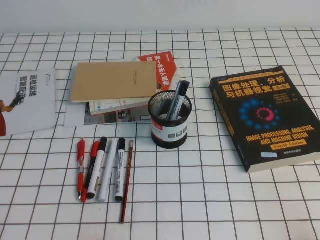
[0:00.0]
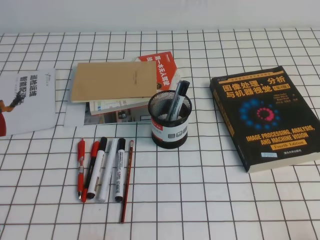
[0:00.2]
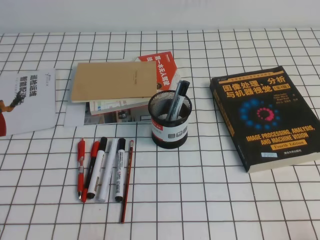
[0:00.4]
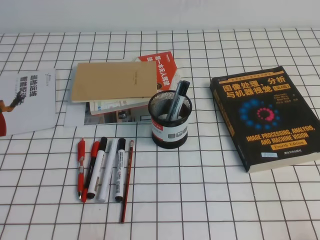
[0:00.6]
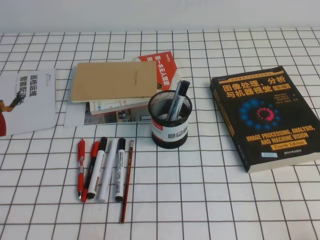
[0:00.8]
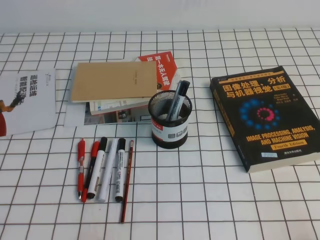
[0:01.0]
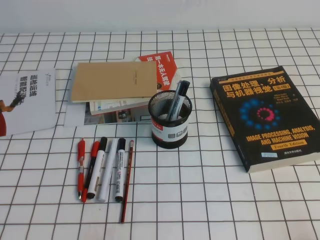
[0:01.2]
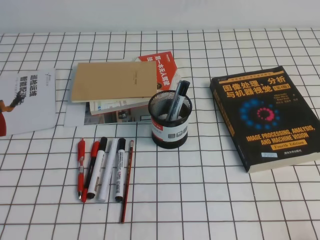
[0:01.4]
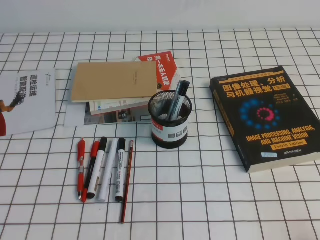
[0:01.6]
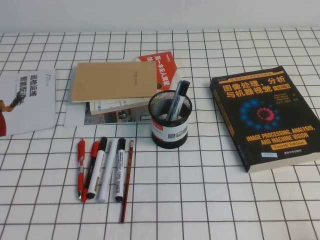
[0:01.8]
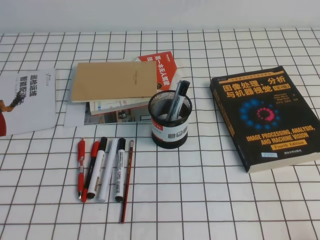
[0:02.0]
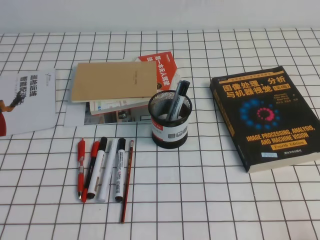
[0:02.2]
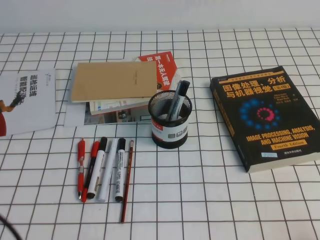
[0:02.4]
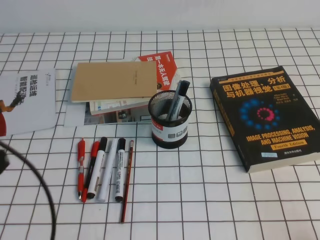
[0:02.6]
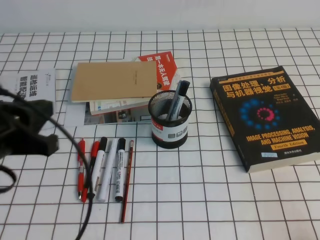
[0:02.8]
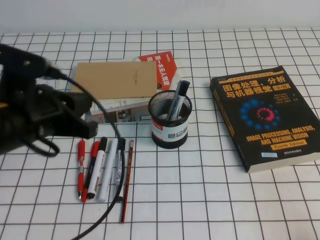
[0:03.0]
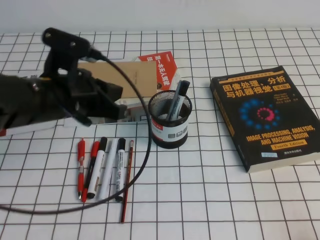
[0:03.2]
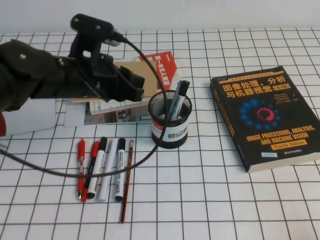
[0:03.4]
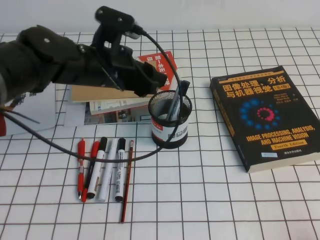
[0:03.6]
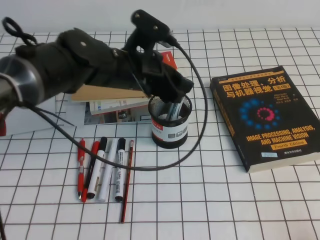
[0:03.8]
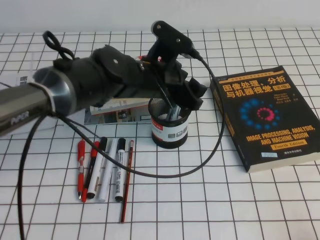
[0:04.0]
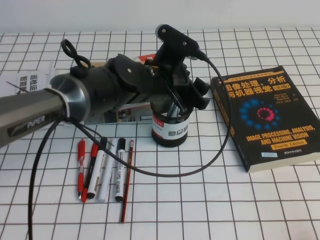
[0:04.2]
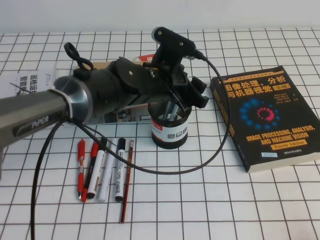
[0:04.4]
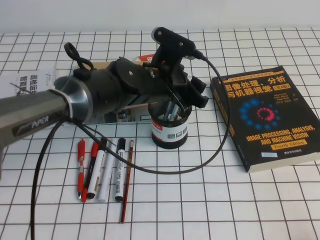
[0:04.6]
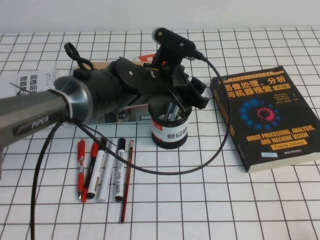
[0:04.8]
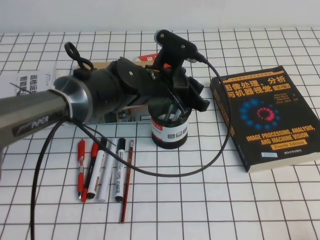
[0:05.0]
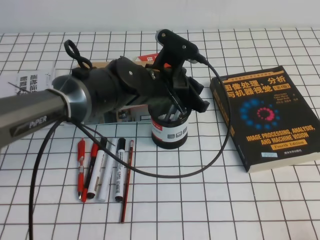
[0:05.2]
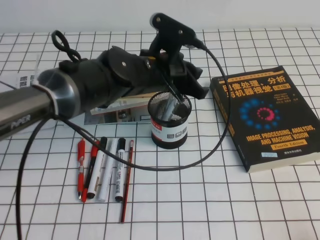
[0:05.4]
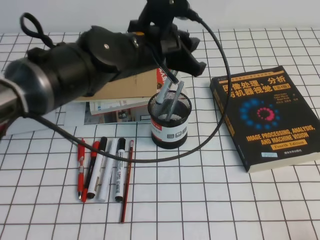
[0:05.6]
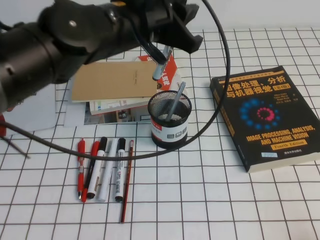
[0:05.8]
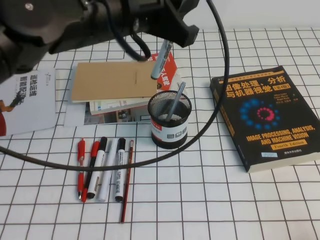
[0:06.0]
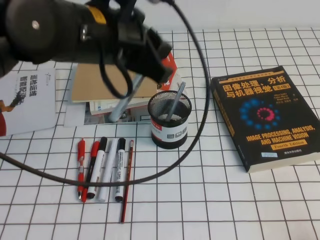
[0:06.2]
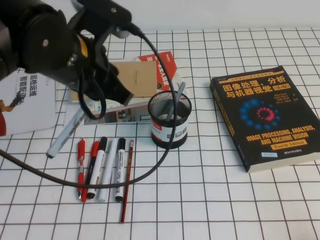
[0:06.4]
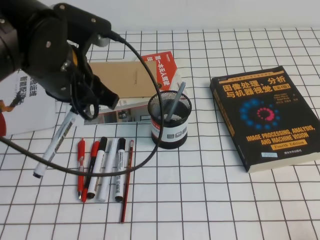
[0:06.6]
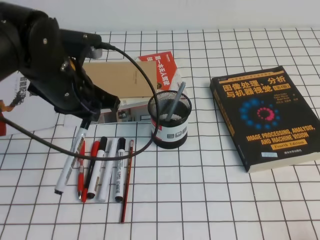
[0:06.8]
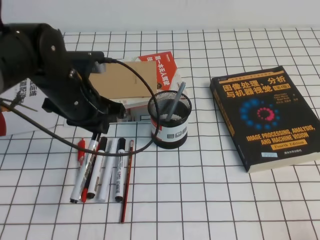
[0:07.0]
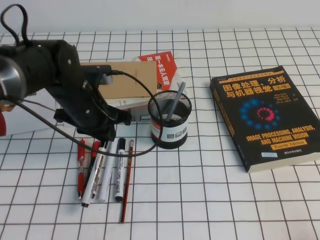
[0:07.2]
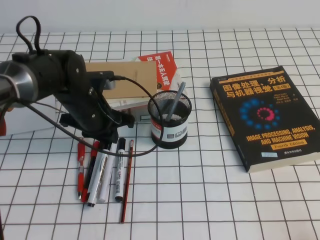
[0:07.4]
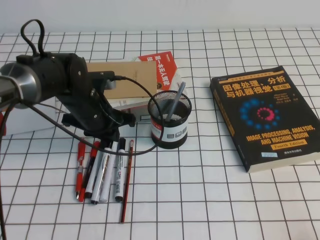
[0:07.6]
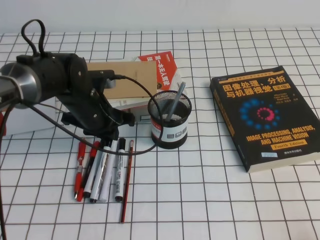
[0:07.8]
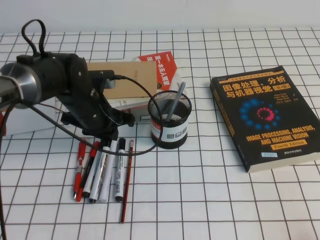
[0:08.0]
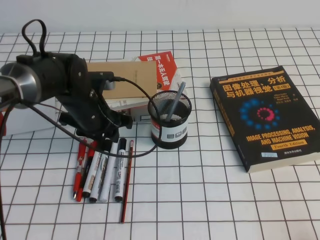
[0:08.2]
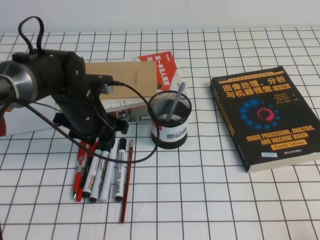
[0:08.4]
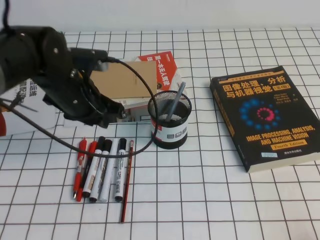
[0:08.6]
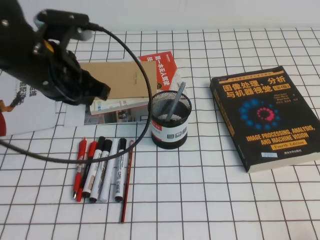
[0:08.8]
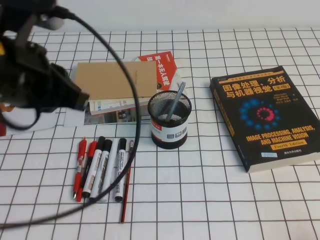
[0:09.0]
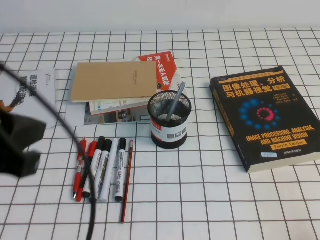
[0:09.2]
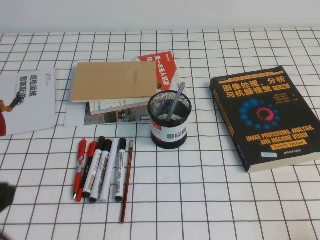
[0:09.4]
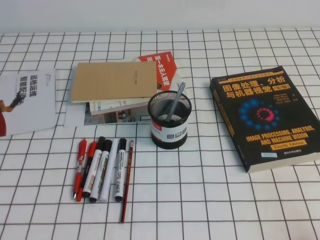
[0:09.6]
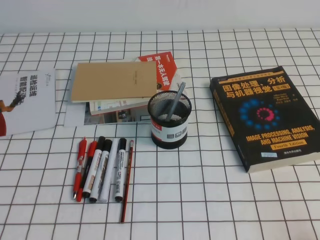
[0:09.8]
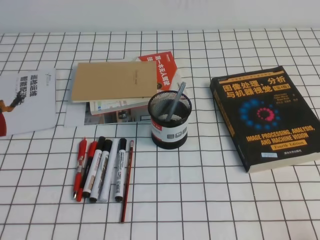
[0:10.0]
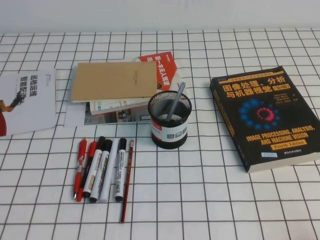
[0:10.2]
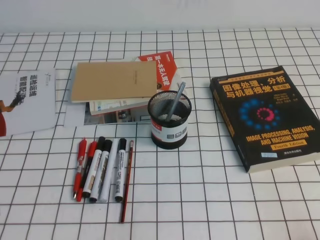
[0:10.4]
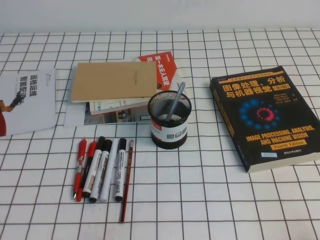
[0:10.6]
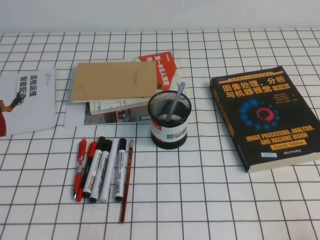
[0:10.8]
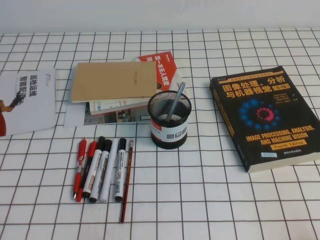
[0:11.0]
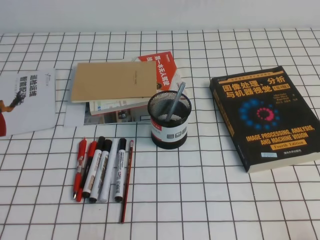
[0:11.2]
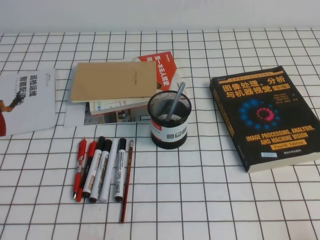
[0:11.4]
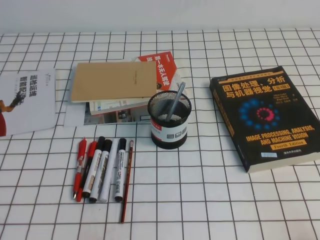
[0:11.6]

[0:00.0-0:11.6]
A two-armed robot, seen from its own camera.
Step, 0:00.0 to 0:11.6: Pick up the pen from the pen holder.
0:01.4 to 0:02.8: The left gripper heads upward and forward, covering some 15 cm.
0:02.8 to 0:04.4: The left gripper is displaced to the right and forward by some 30 cm, and opens.
0:04.4 to 0:05.8: The left gripper is displaced upward by roughly 10 cm, and closes.
0:05.8 to 0:07.2: The left gripper is displaced downward and to the left by roughly 15 cm.
0:07.2 to 0:08.8: The left gripper shifts some 10 cm upward, and opens, then closes once more.
0:08.8 to 0:10.2: The left gripper goes some 30 cm backward and to the left.

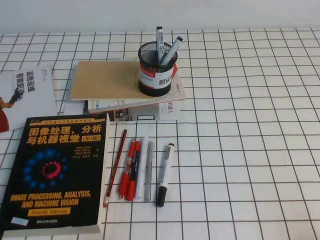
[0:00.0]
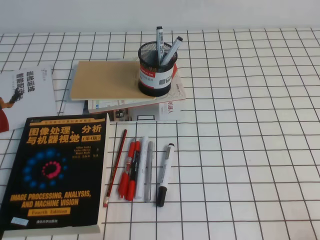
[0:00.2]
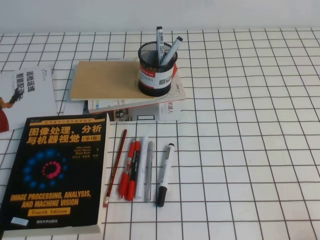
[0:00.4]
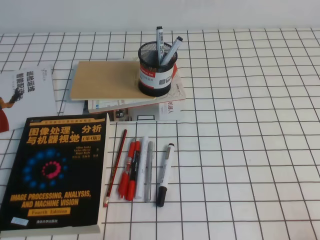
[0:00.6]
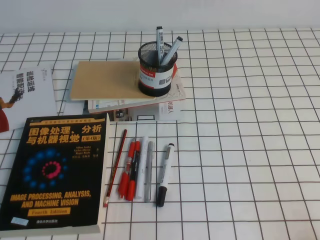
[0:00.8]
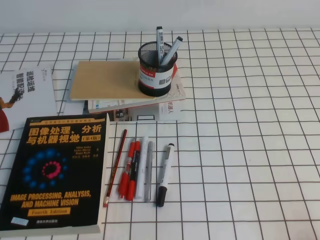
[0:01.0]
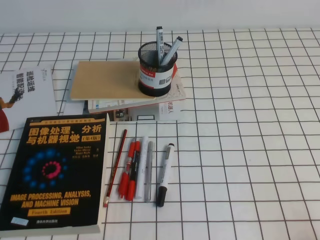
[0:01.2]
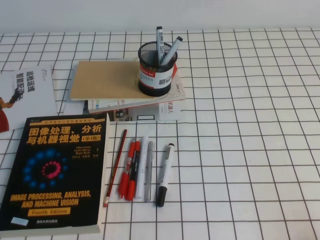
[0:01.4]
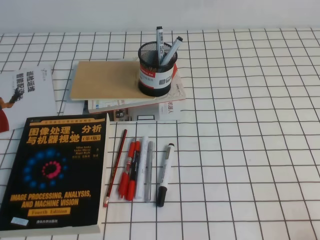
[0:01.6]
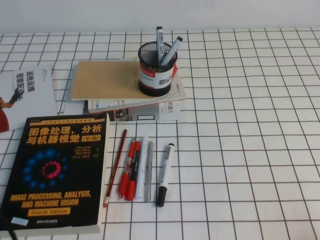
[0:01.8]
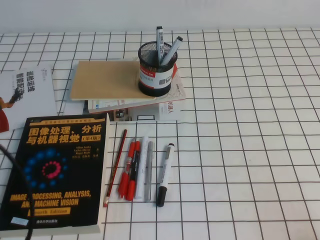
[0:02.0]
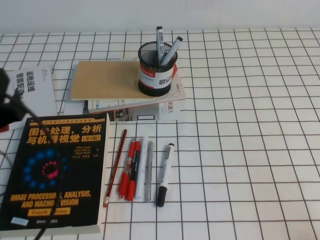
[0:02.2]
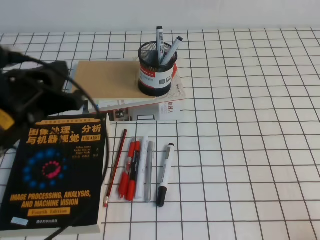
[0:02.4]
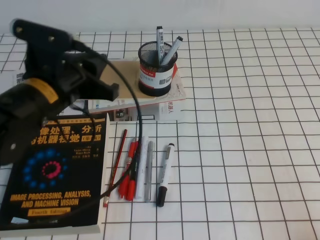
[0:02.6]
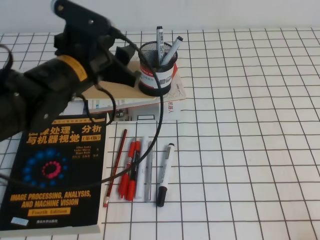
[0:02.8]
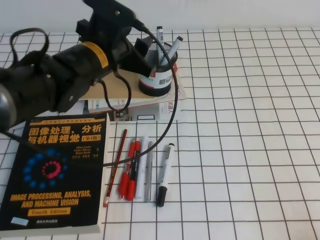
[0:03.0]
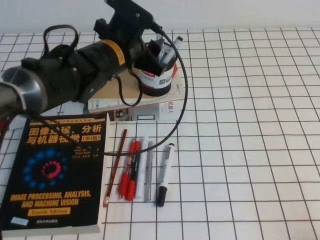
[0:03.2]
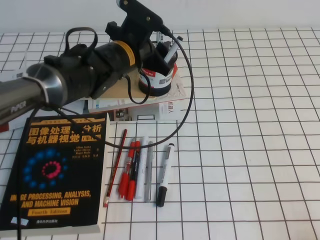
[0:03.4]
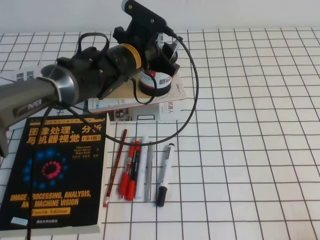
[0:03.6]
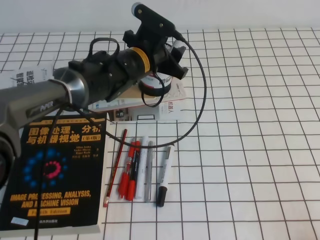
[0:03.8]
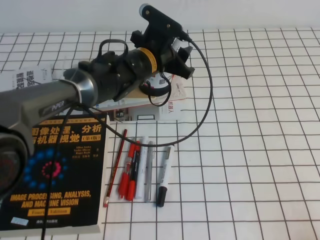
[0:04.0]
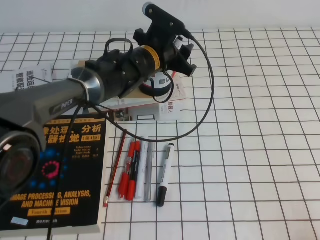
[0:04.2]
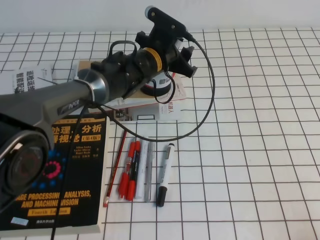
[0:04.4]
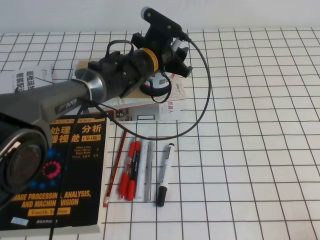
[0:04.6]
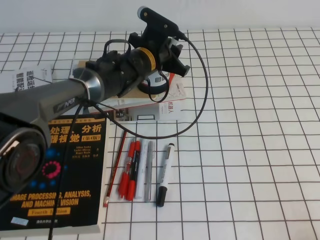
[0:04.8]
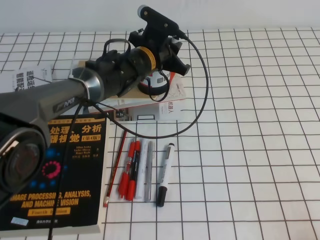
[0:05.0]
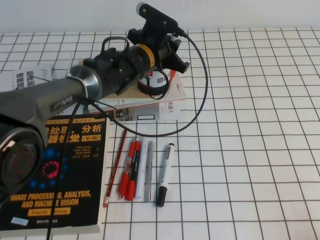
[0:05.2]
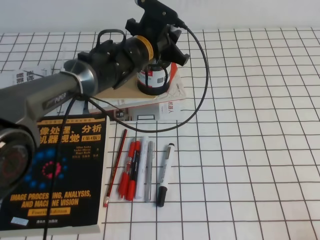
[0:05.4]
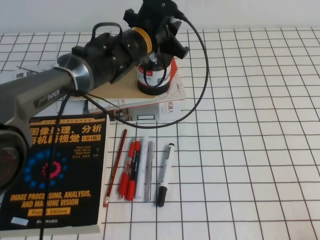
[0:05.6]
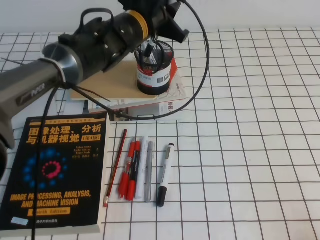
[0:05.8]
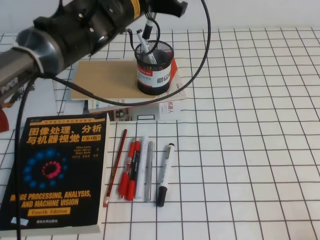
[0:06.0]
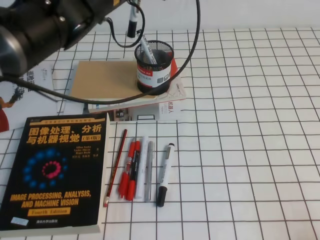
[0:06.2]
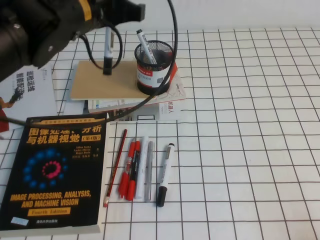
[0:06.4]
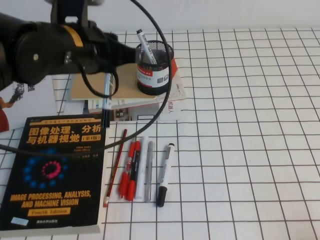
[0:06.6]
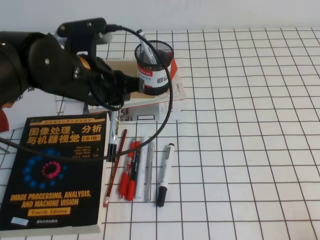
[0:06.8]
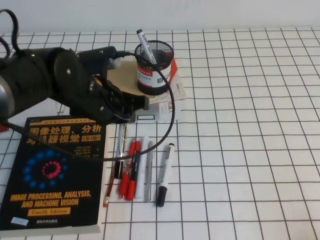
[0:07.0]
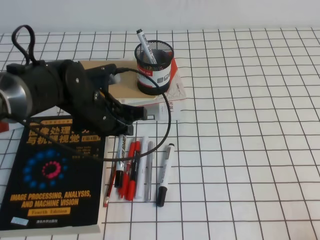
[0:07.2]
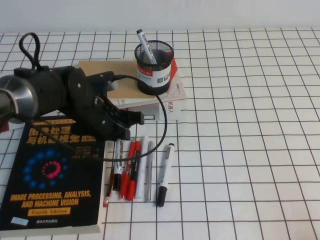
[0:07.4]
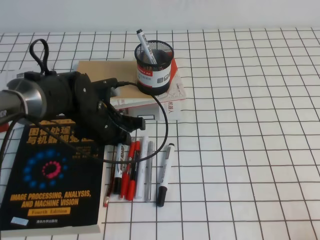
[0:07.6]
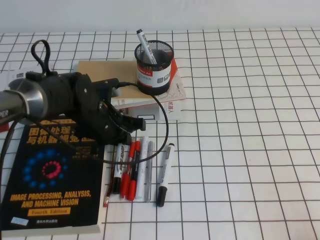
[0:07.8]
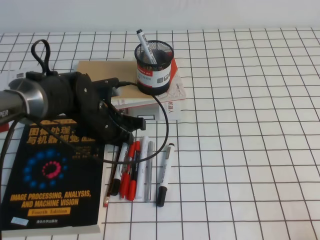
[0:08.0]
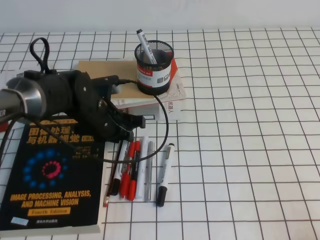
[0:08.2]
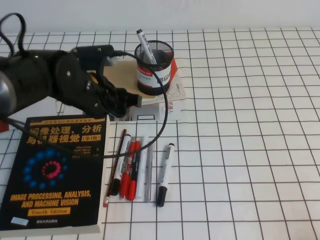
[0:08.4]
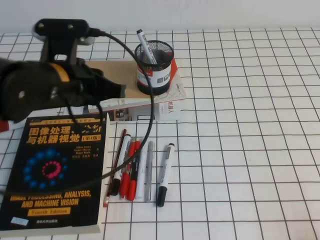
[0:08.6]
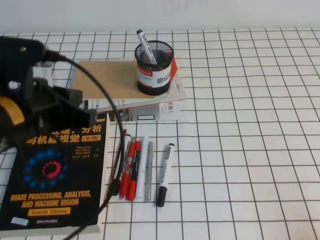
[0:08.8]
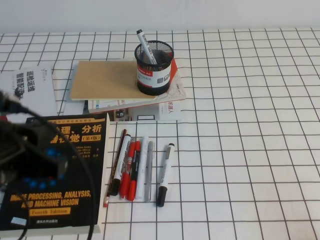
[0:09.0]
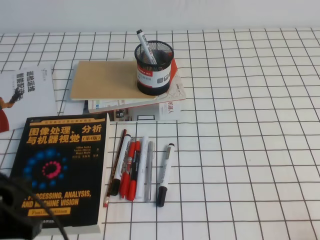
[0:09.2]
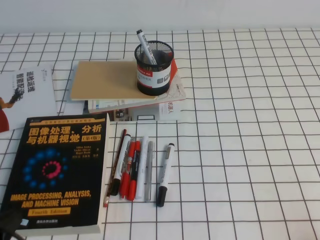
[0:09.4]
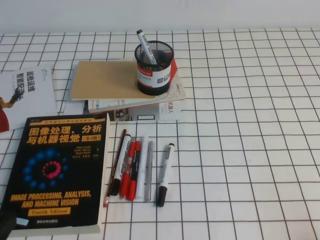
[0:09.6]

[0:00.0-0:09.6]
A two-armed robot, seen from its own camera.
0:01.6 to 0:03.2: The left gripper is displaced forward and to the right by approximately 35 cm, and opens its fingers.
0:03.2 to 0:04.8: The left gripper moves forward, downward and to the right, about 10 cm, and closes its fingers.
0:04.8 to 0:06.4: The left gripper is displaced upward, backward and to the left by roughly 20 cm.
0:06.4 to 0:08.0: The left gripper travels downward by roughly 20 cm.
0:08.0 to 0:09.6: The left gripper shifts some 35 cm backward and to the left, and closes.
